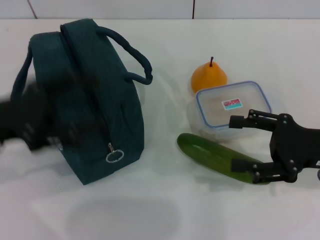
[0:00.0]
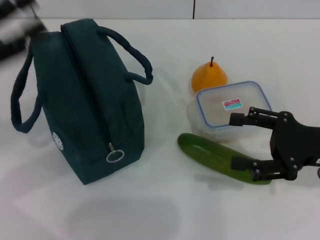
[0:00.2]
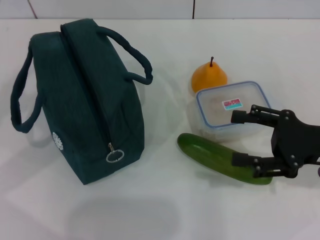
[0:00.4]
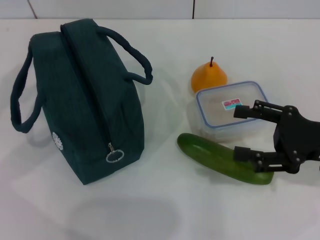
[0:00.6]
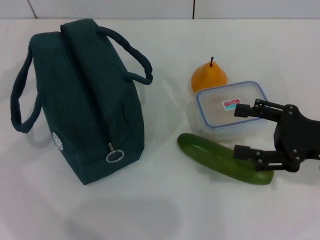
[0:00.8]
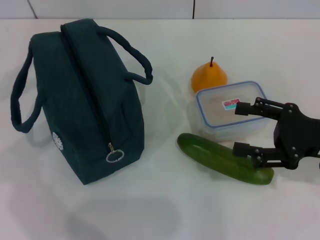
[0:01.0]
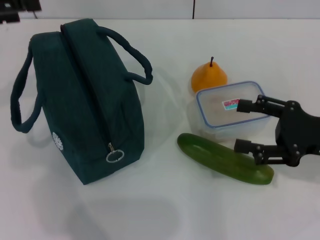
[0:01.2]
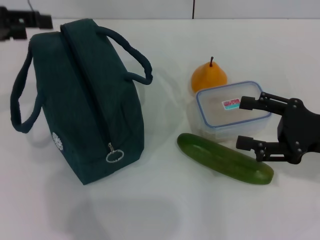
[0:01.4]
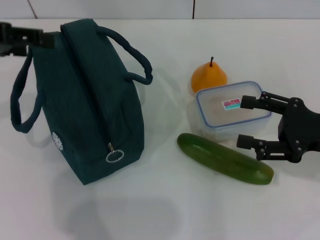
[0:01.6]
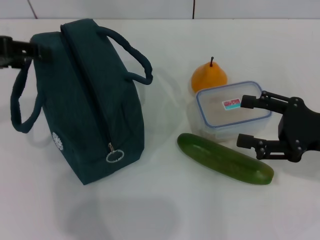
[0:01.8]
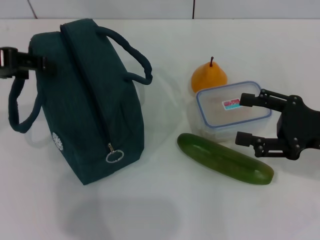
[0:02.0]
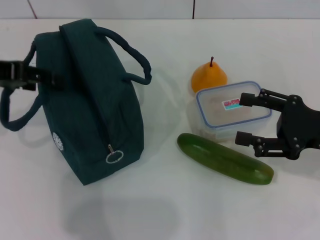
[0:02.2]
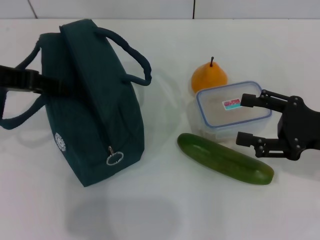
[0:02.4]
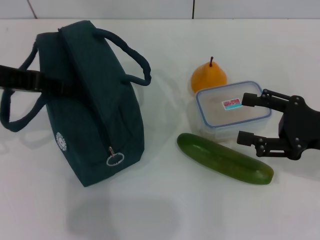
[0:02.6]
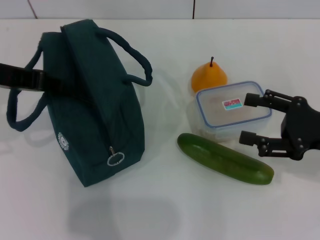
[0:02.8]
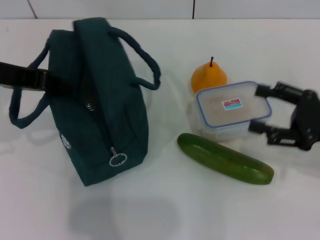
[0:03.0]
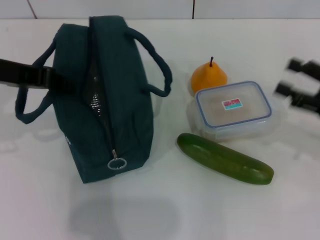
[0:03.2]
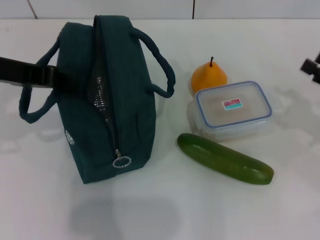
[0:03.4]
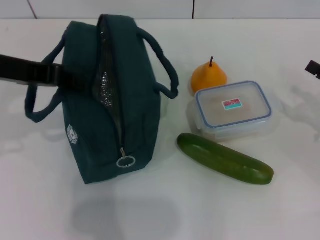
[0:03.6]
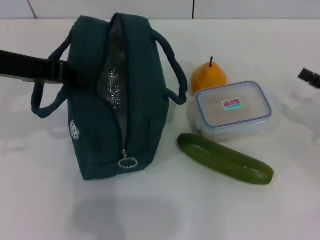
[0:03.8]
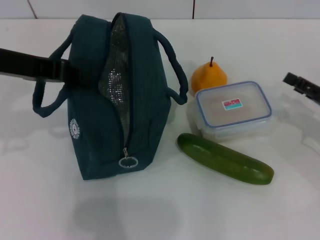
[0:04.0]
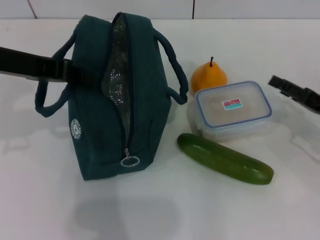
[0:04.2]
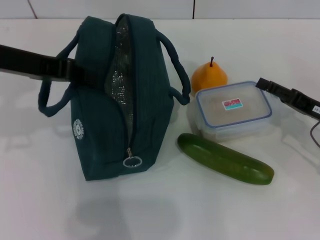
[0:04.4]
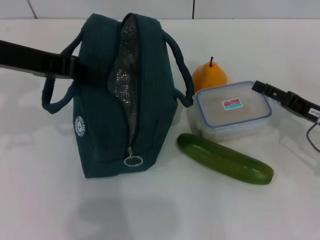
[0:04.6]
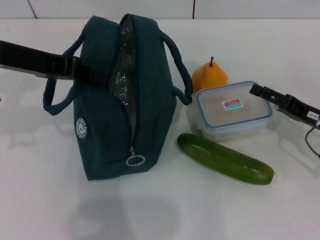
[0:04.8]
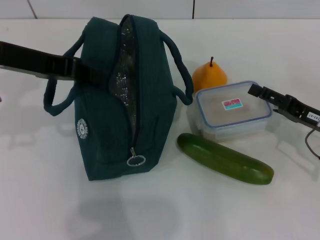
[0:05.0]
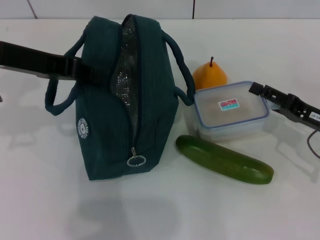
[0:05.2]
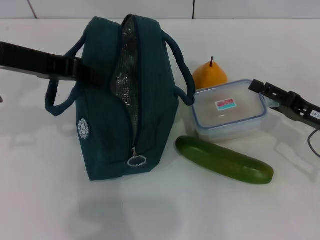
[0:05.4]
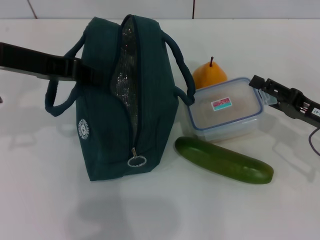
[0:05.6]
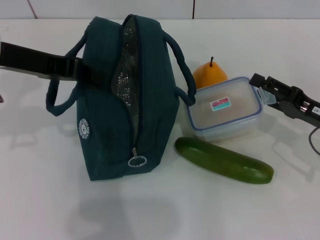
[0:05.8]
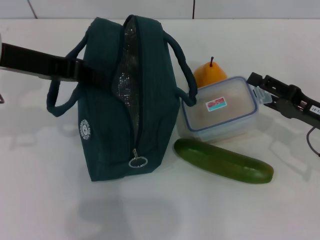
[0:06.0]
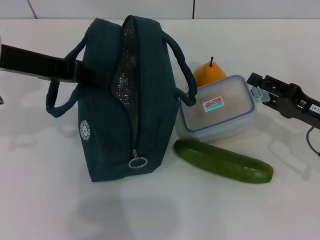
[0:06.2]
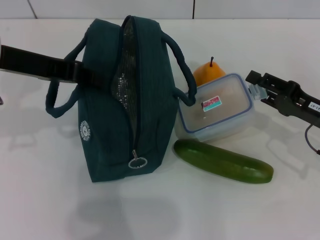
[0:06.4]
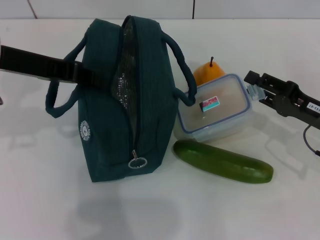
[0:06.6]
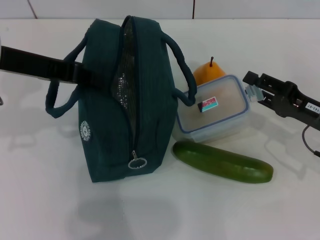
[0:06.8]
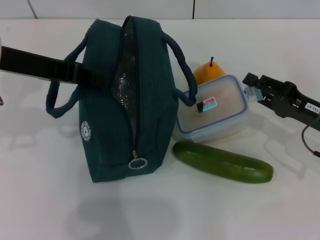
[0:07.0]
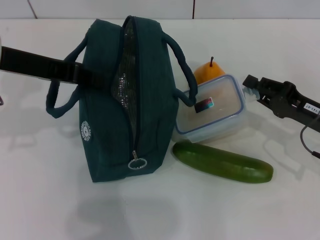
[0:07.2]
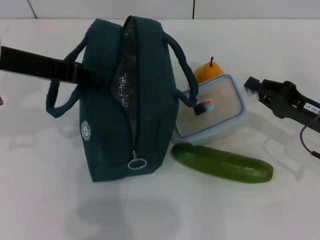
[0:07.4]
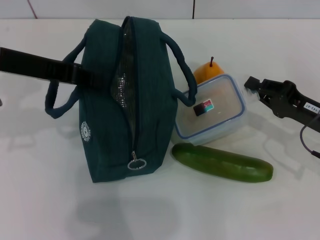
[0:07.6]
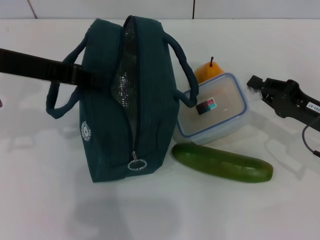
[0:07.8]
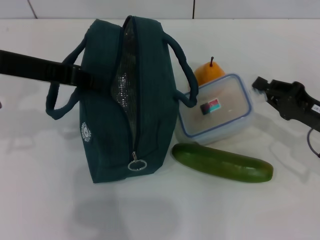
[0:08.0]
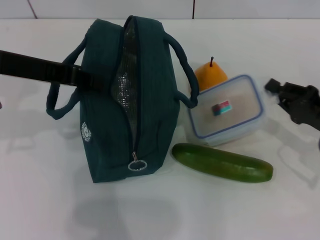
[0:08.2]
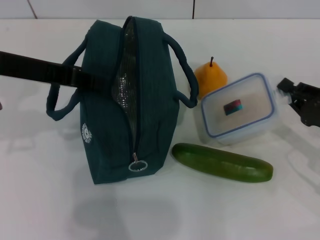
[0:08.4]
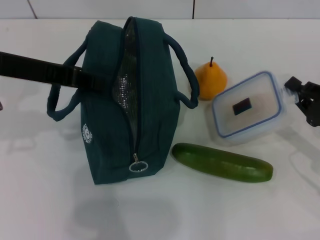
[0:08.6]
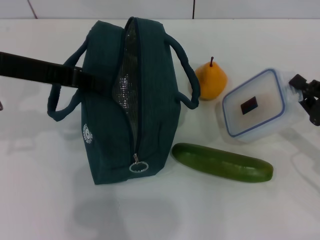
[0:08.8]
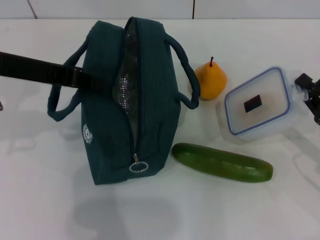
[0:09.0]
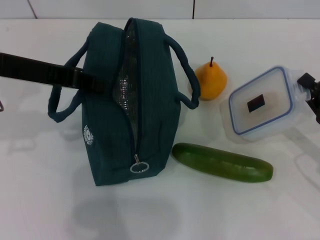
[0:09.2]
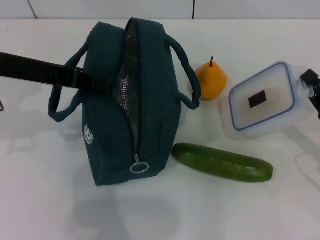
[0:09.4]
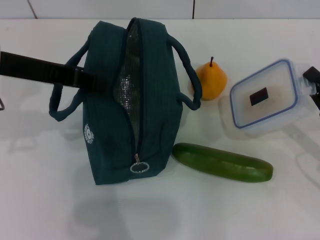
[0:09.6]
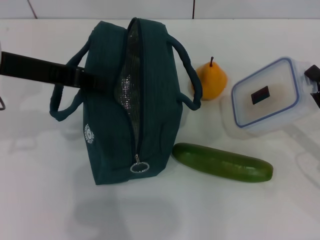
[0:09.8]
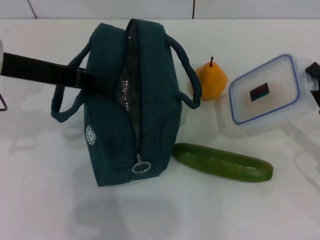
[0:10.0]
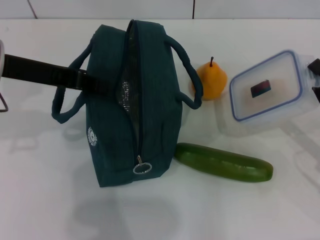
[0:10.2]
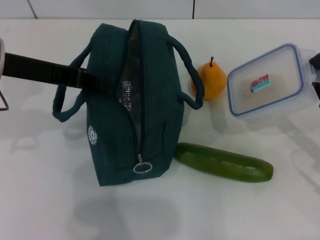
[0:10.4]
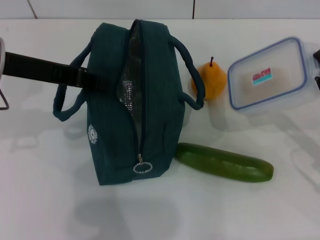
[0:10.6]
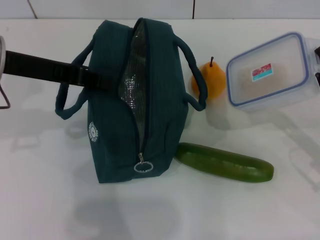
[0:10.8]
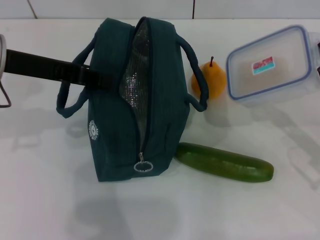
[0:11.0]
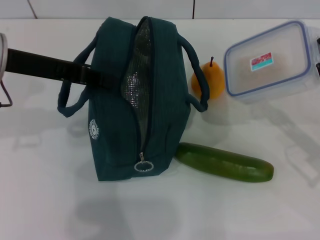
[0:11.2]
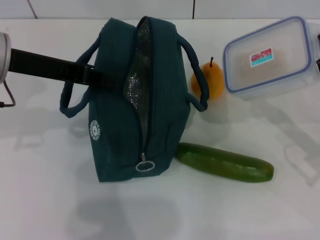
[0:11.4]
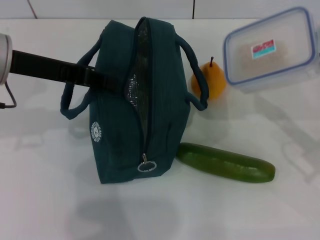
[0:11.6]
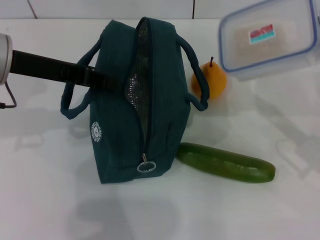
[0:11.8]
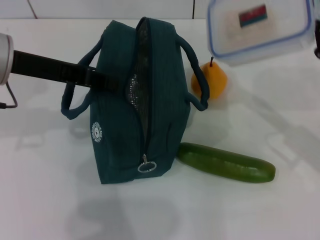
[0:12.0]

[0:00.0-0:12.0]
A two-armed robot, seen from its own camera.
Step, 0:00.0 to 0:03.4: Hold the lunch bag with your left hand.
Step, 0:03.6 to 0:07.4: Pick up the lunch box with your right hand.
0:00.0 to 0:01.6: The left gripper heads upward and forward, covering approximately 10 cm.
0:01.6 to 0:03.0: The left gripper closes.
0:03.0 to 0:04.4: The right gripper travels downward by roughly 5 cm.
0:04.4 to 0:06.0: There are only small adjustments of the grippers.
0:06.0 to 0:07.6: The right gripper closes up.
0:07.6 to 0:09.0: The right gripper shifts by some 5 cm.
0:09.0 to 0:10.4: The grippers stay close to where they were, moving slightly.
0:10.4 to 0:12.0: The right gripper shifts by approximately 5 cm.

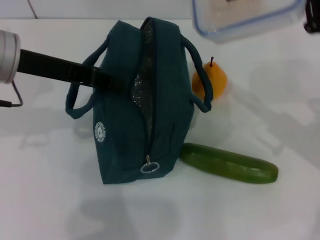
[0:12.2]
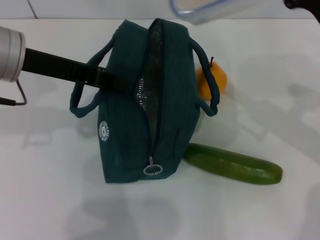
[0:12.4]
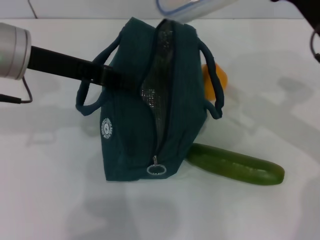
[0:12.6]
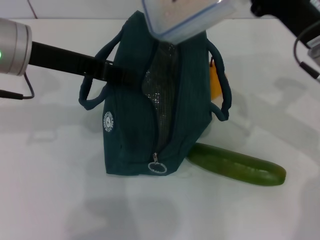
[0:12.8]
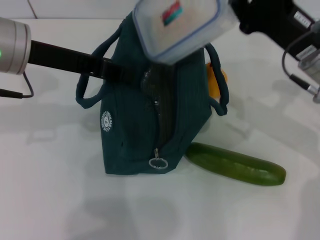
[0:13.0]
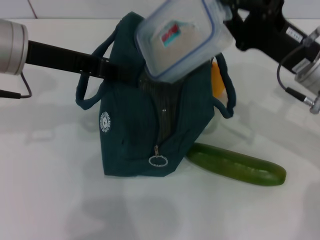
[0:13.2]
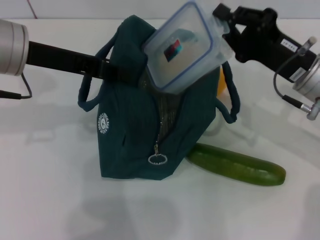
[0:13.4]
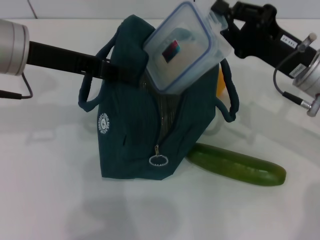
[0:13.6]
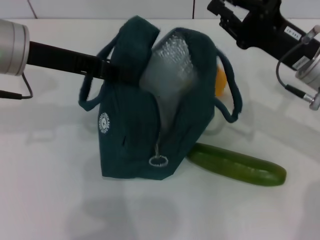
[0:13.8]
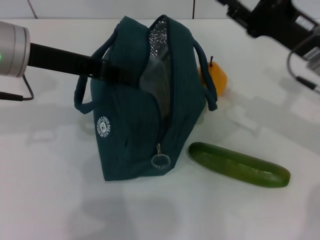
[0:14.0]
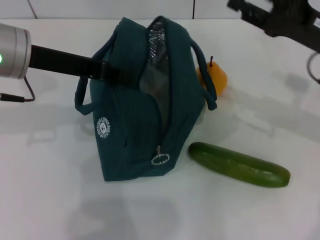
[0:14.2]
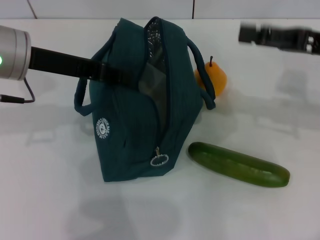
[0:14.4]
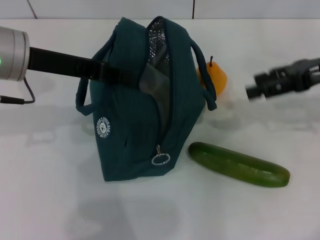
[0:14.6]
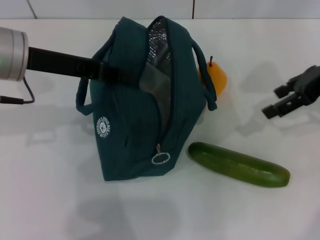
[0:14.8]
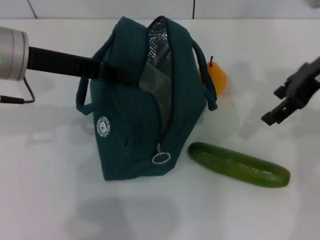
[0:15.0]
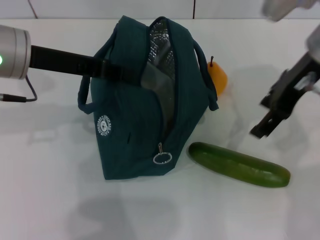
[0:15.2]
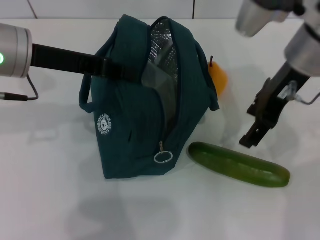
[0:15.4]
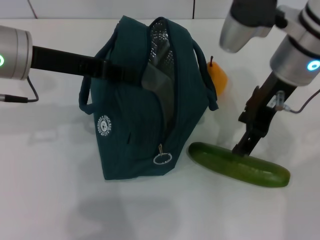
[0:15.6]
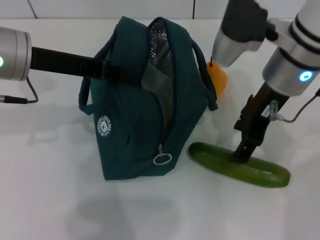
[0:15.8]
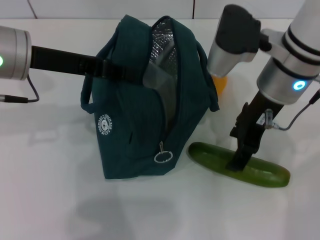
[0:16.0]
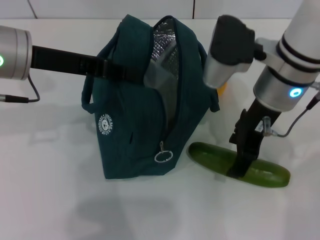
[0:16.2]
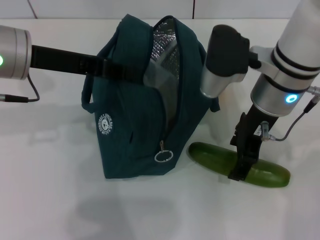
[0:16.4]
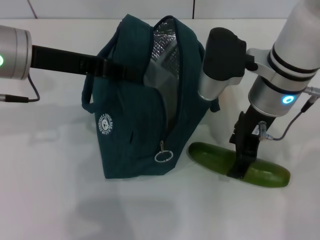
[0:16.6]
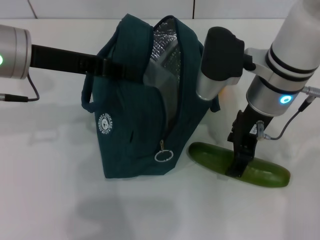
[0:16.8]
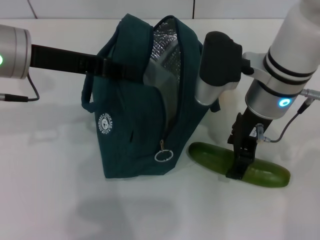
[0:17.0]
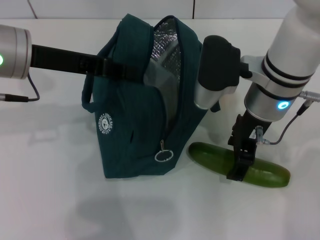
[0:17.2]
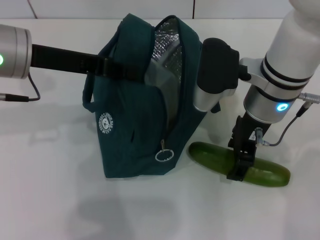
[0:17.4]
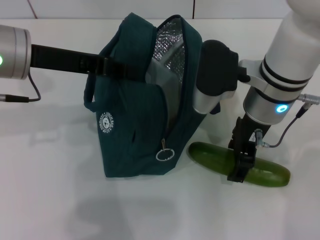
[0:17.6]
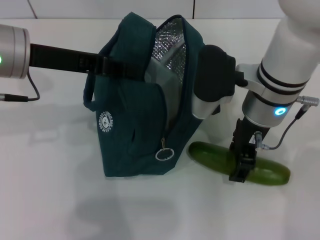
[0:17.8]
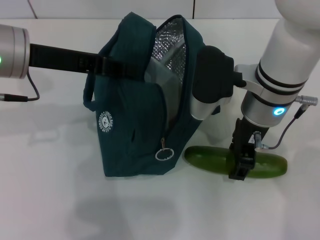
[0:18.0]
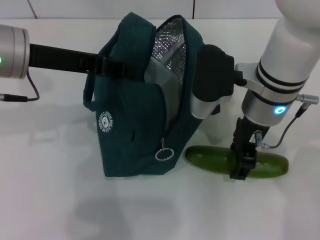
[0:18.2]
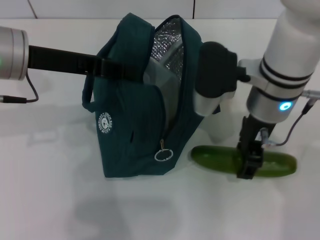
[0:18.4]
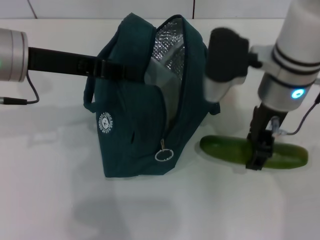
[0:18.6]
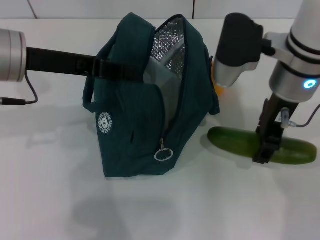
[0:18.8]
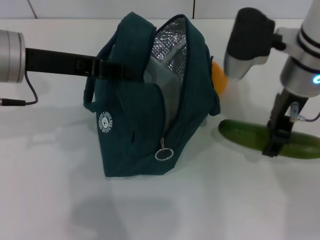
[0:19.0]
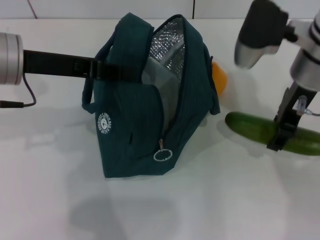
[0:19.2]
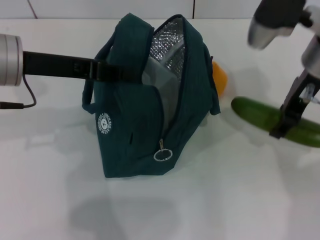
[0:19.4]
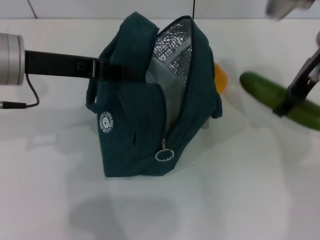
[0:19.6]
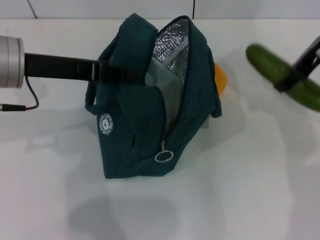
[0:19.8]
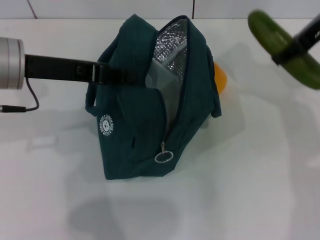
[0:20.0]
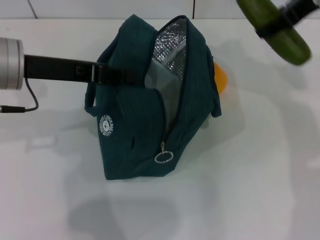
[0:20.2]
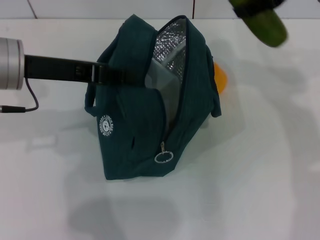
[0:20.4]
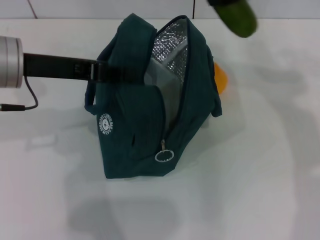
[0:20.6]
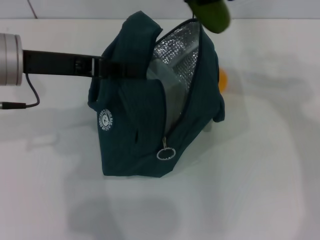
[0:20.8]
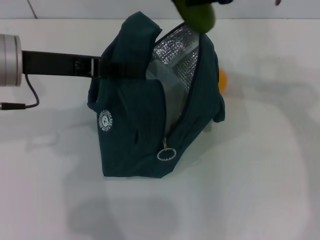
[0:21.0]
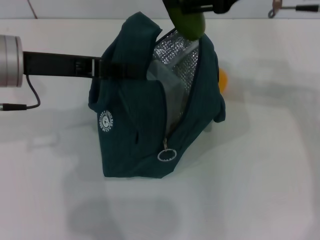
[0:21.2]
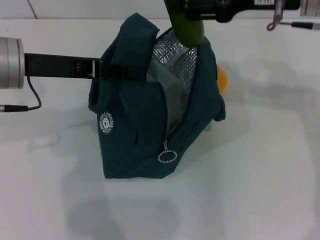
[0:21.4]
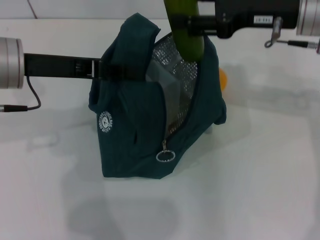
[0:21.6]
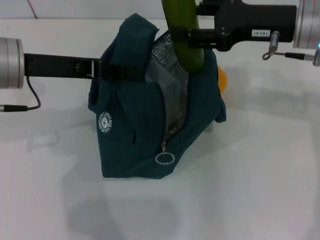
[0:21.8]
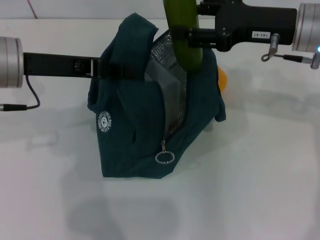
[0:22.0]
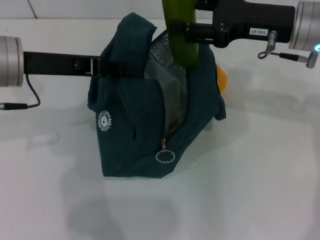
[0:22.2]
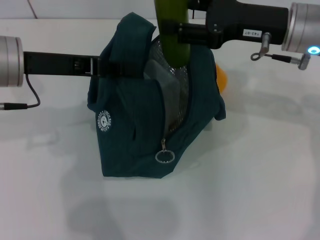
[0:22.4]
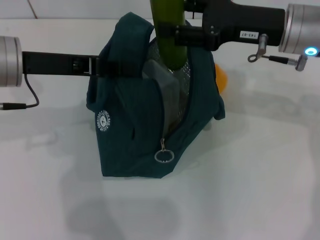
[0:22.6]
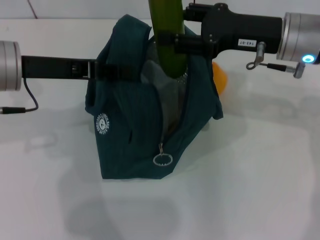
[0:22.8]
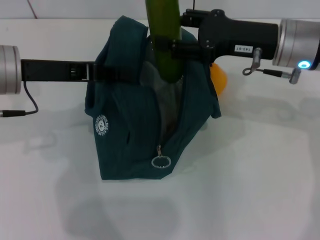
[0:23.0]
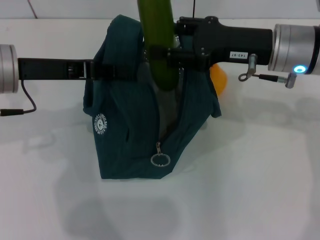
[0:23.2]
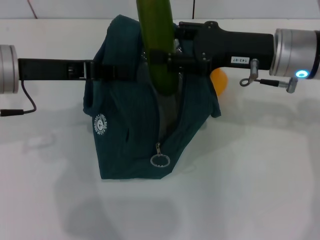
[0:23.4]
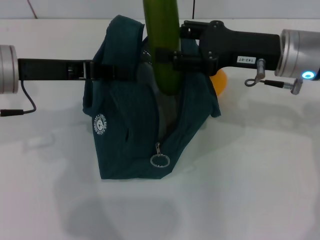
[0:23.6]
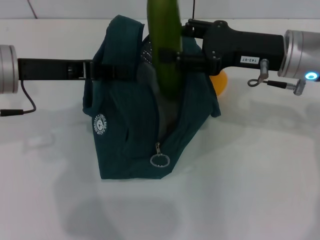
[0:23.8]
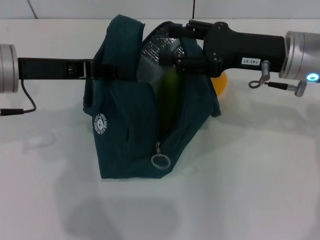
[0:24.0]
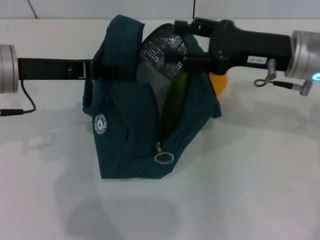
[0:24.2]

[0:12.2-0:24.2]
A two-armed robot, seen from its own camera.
Step, 0:14.2 to 0:17.8: Pick up the cucumber with your right hand.
0:12.2 to 0:13.8: The right gripper changes place by approximately 5 cm.
0:13.8 to 0:15.2: The right gripper heads upward, covering approximately 10 cm, and opens up.
0:15.2 to 0:16.6: The right gripper shifts some 10 cm to the left and downward.
0:16.6 to 0:18.2: The grippers move only a little.
0:18.2 to 0:19.8: The right gripper heads to the right, upward and forward, covering some 15 cm.
0:19.8 to 0:21.2: The right gripper moves roughly 5 cm.
0:21.2 to 0:22.6: The right gripper moves downward, roughly 10 cm.
0:22.6 to 0:24.2: There are only small adjustments of the grippers.
